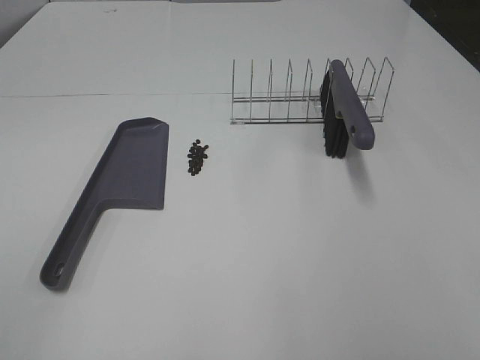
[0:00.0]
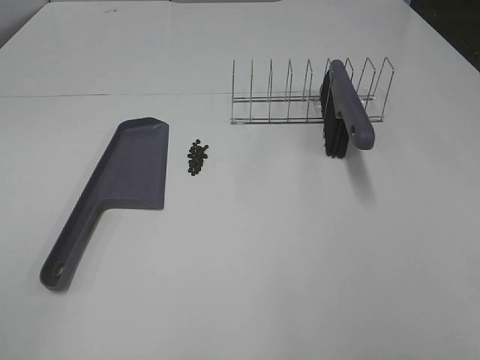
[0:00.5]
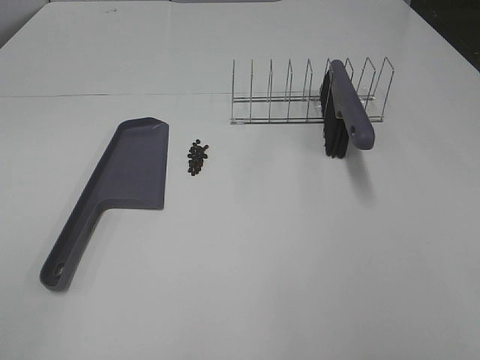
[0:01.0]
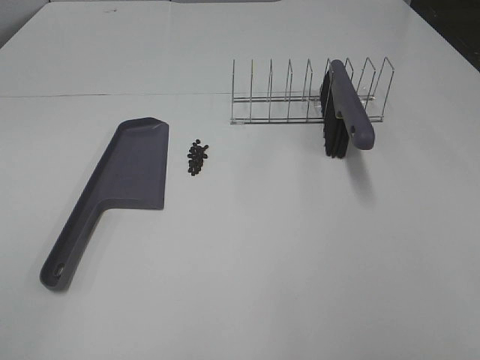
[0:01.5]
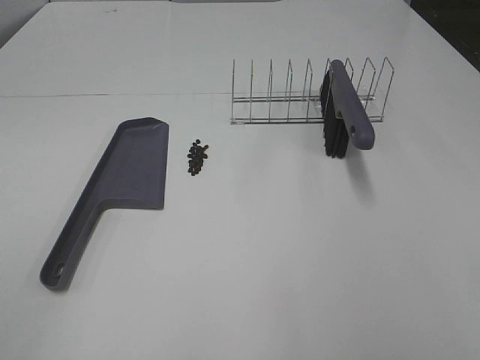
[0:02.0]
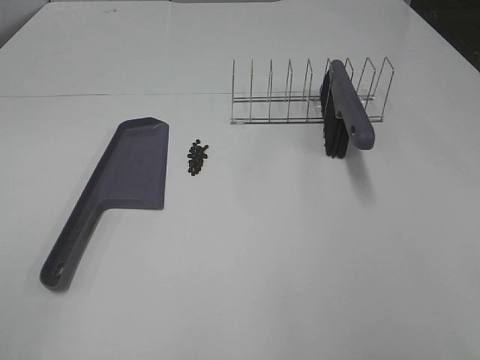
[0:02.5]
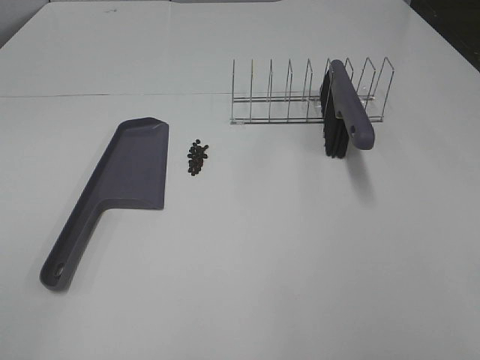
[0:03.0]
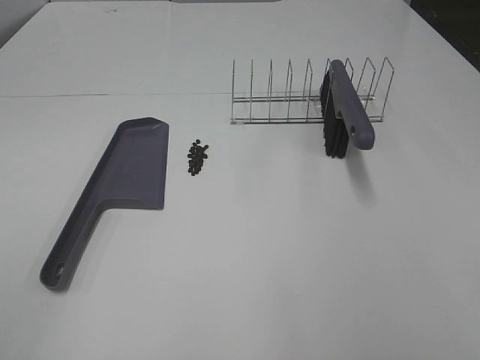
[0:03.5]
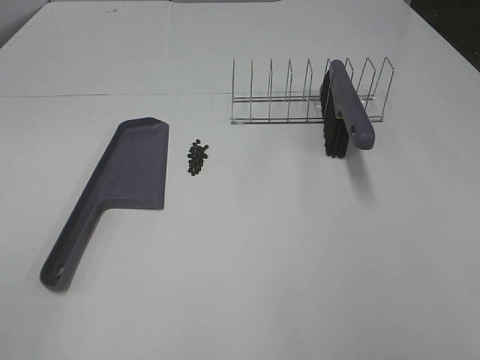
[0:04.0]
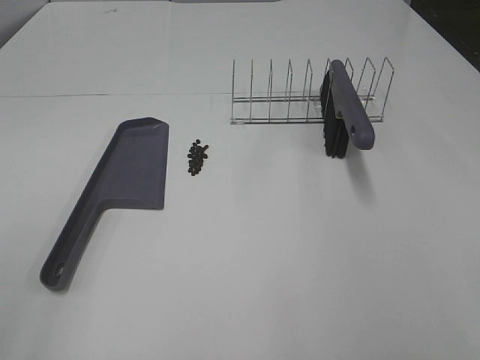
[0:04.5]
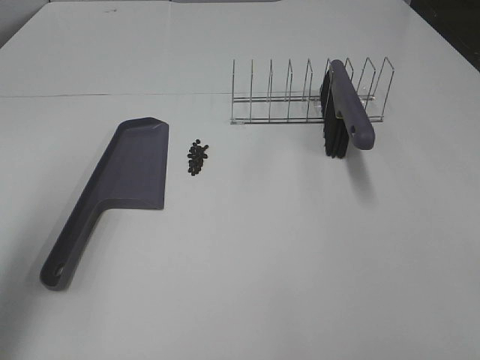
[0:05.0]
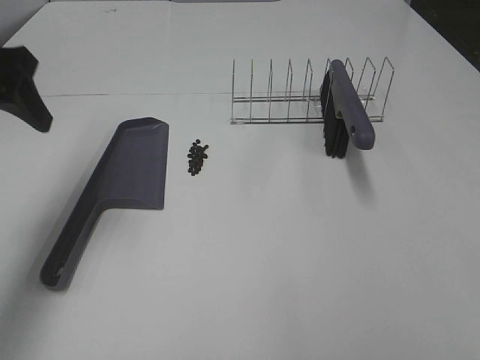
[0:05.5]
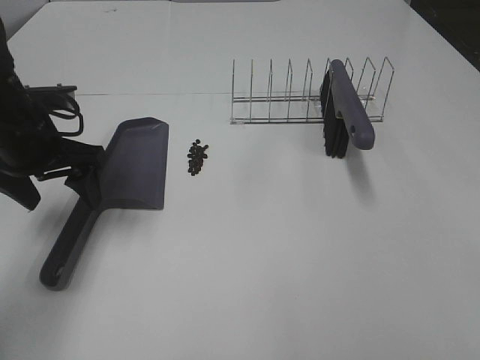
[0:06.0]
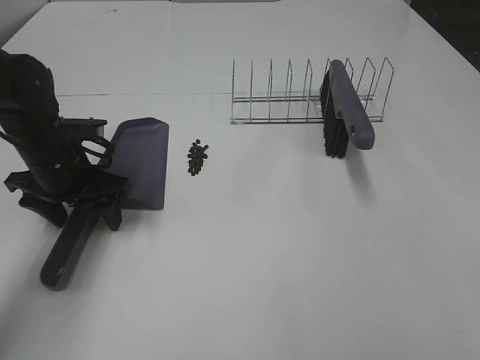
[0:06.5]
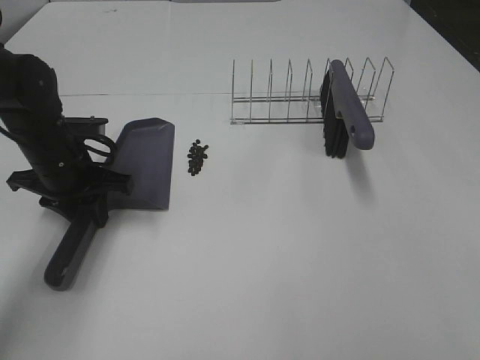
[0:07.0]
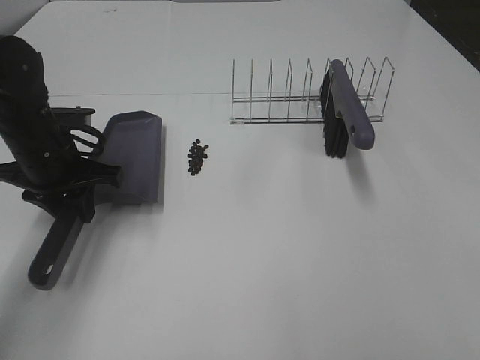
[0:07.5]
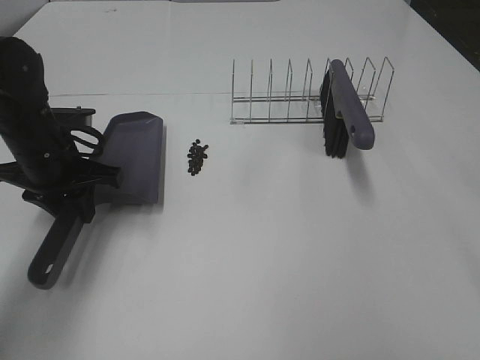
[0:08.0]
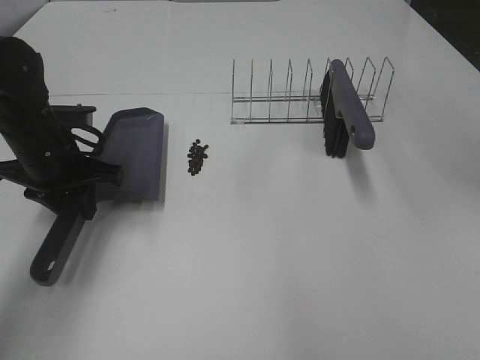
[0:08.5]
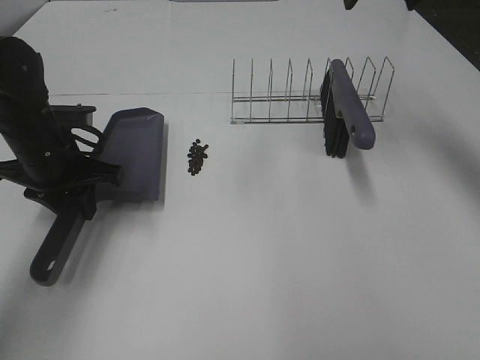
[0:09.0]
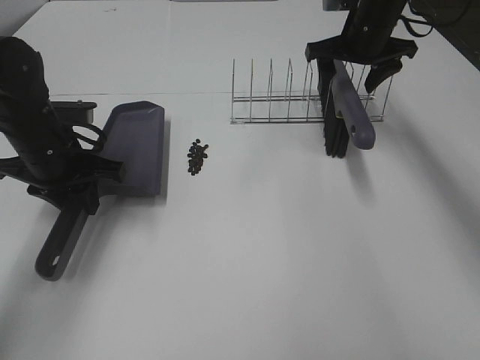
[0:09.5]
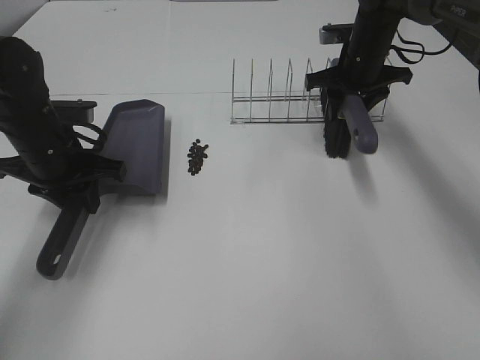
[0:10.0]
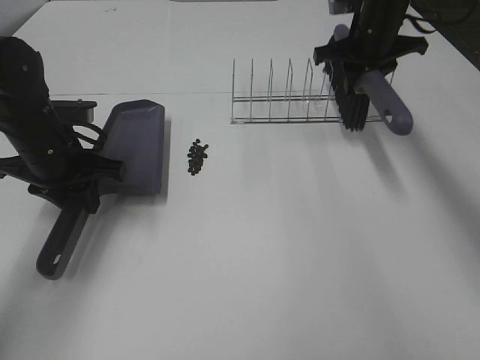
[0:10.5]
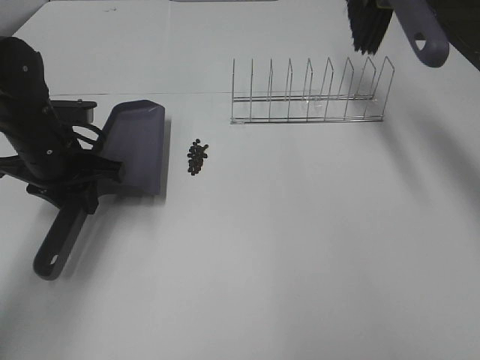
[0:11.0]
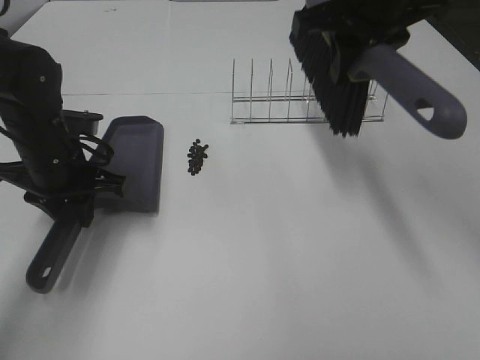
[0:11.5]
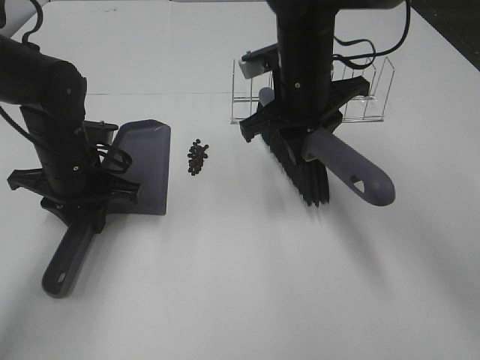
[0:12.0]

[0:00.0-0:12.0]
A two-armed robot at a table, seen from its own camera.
Task of the whole recording: Sweep Coffee Bean.
Step, 0:00.0 to 0:06.5: Left hand: grab the dustpan.
Step, 0:07.5 to 0:10.0: Right hand:grab the broom.
0:00.0 to 0:04.0: Both grippers stay about where they are.
0:04.0 to 0:06.0: The left gripper travels forward by some 35 cm.
0:06.0 to 0:08.0: The left gripper closes its fingers.
0:08.0 to 0:10.0: The right gripper is displaced forward and downward by about 50 cm, and closes its fingers.
0:10.0 to 0:12.0: The right gripper is displaced backward and to the left by some 20 cm, and moves about 20 cm upward and comes back.

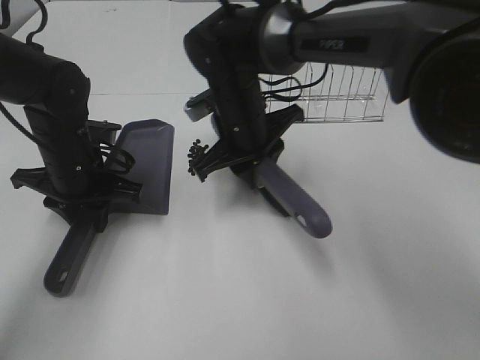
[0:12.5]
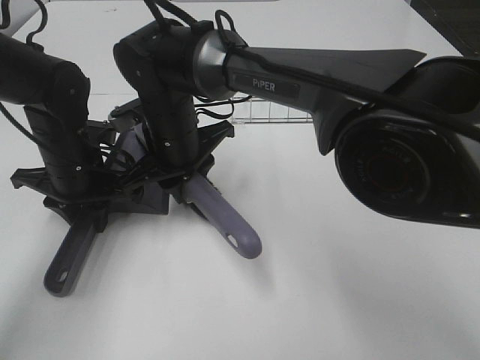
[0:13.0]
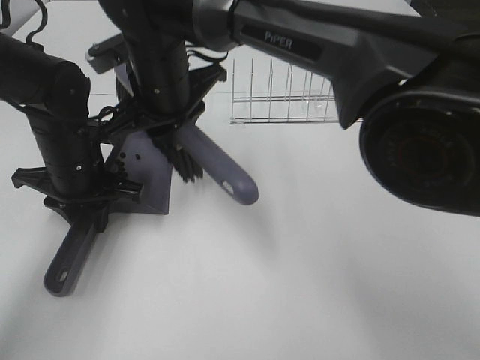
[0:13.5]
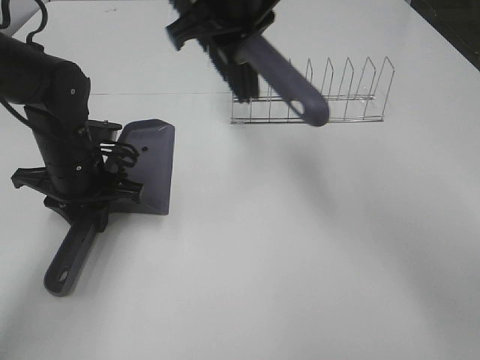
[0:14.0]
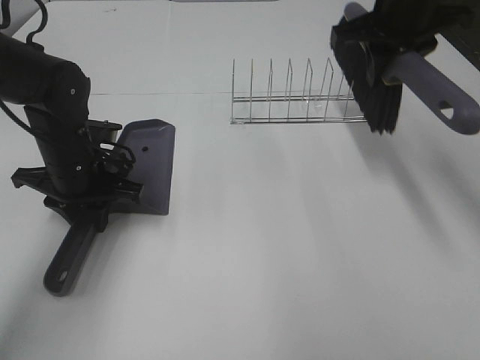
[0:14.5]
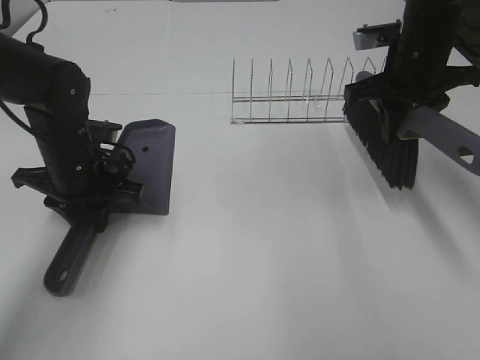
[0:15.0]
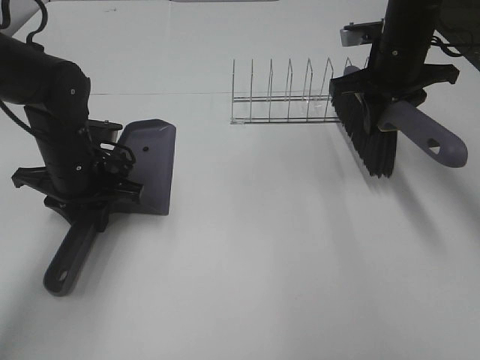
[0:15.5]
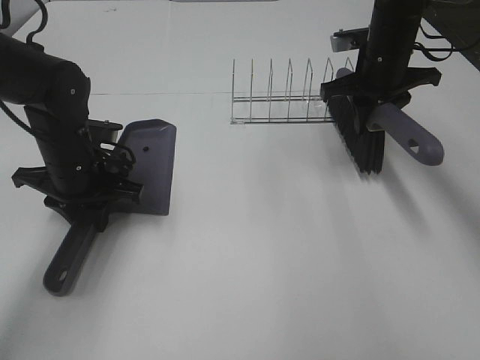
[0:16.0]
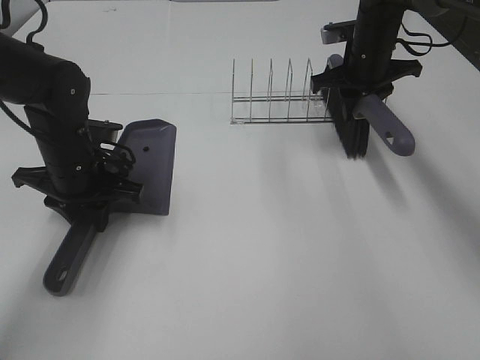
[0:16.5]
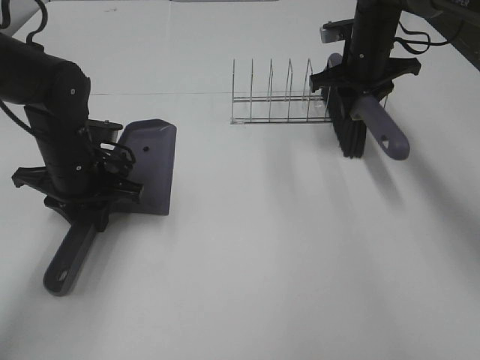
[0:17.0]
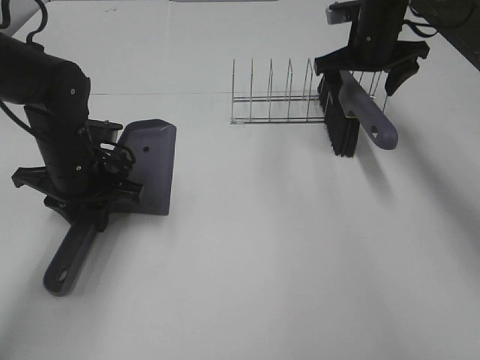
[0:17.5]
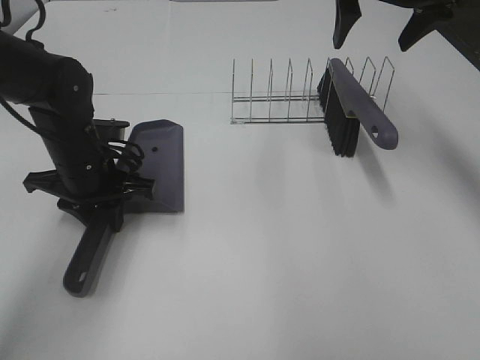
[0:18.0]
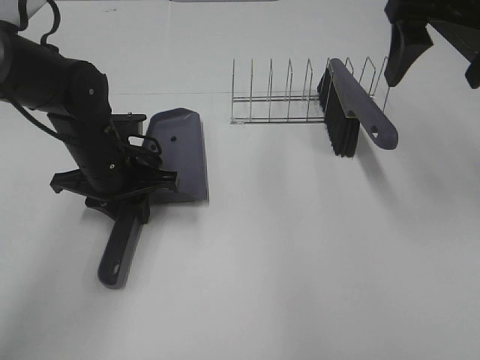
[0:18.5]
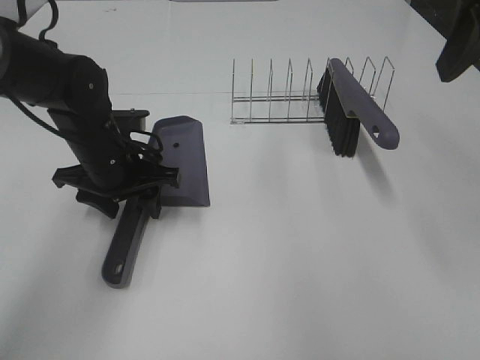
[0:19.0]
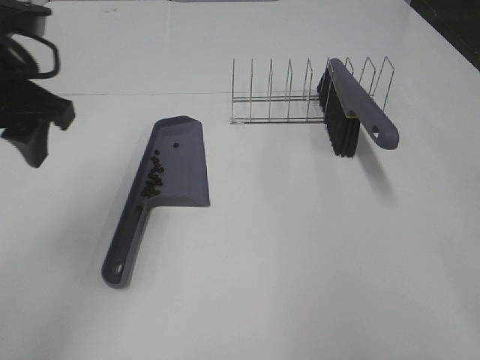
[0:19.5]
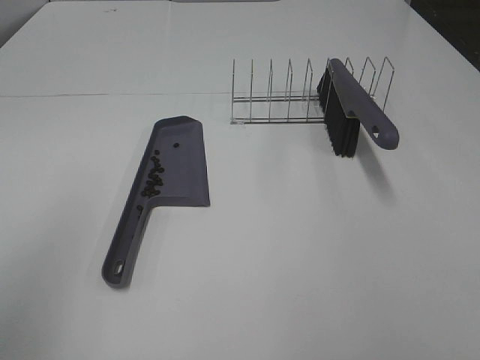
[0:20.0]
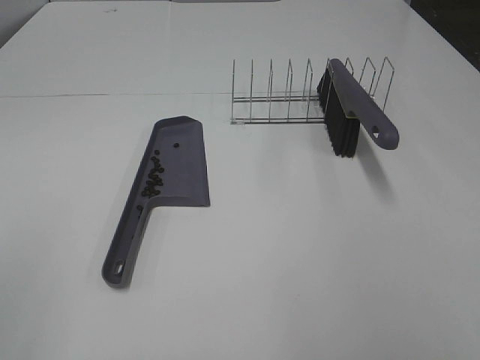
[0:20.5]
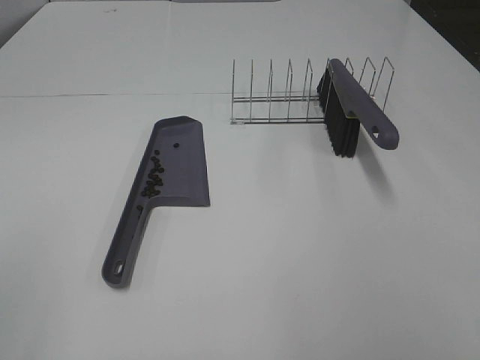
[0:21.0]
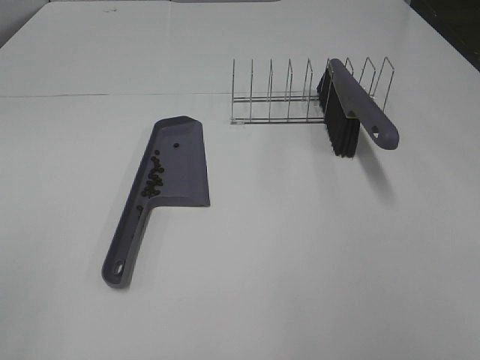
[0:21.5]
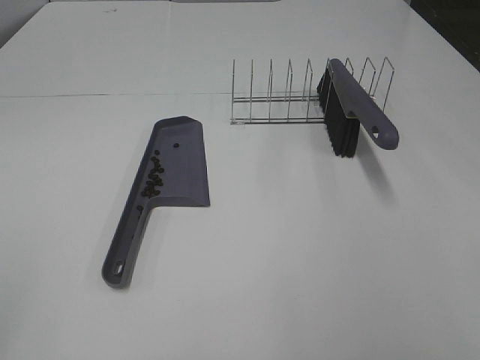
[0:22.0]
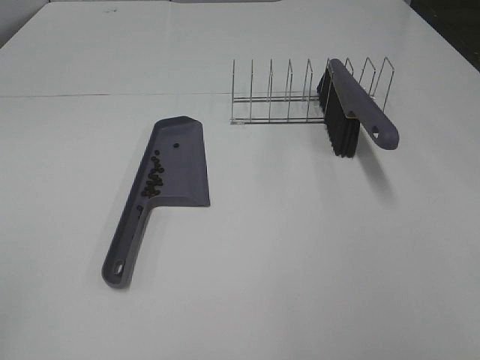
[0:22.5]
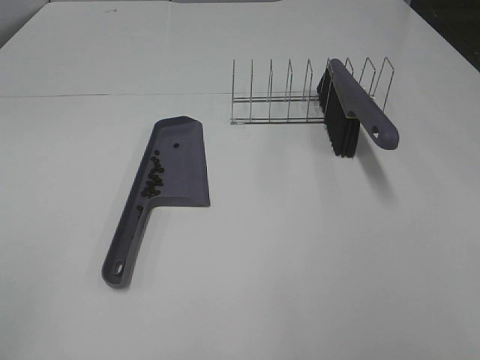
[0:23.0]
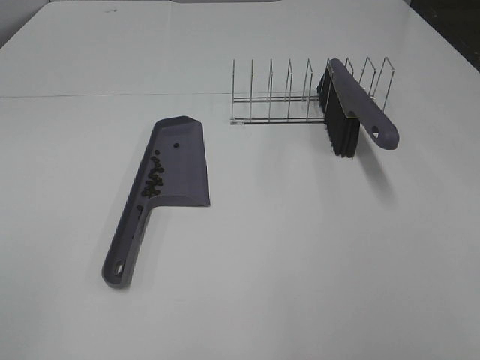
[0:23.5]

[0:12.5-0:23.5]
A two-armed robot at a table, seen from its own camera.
Task of the whole recording: Sweep Coffee Bean.
Step, 0:13.5 to 0:17.0: Right hand:place the broom on the rack.
Step, 0:17.5 to 0:19.0: Left hand:place the dustpan on the table.
0:12.5 to 0:14.5: The right gripper heads to the right and upward, covering some 25 cm.
0:14.5 to 0:16.0: The right gripper heads downward, covering some 10 cm.
0:16.0 to 0:18.0: The right gripper is displaced upward by about 15 cm, and opens its fingers.
0:18.0 to 0:20.0: The left gripper heads backward, upward and to the left, covering some 30 cm, and opens up, while the right gripper is displaced backward by about 40 cm.
0:20.0 to 0:21.5: The left gripper heads backward, covering approximately 10 cm.

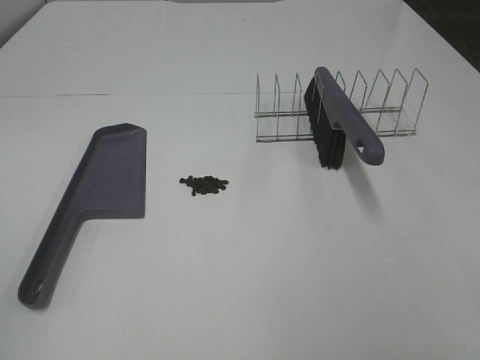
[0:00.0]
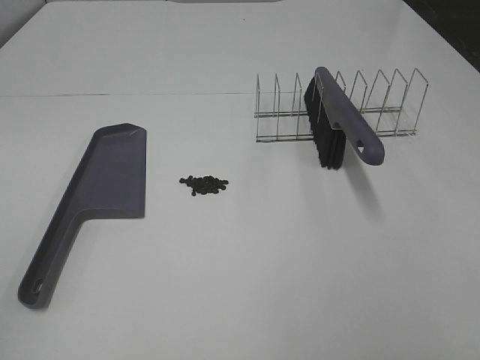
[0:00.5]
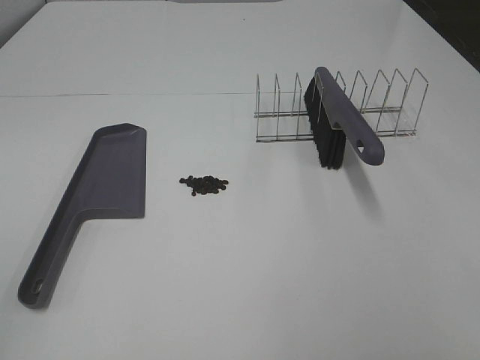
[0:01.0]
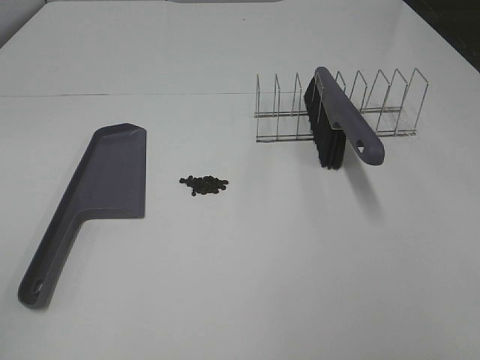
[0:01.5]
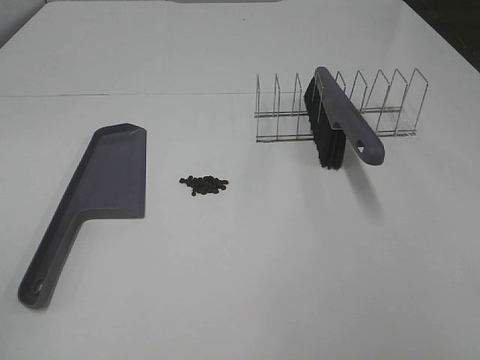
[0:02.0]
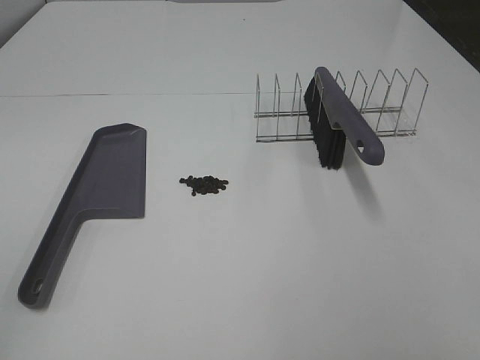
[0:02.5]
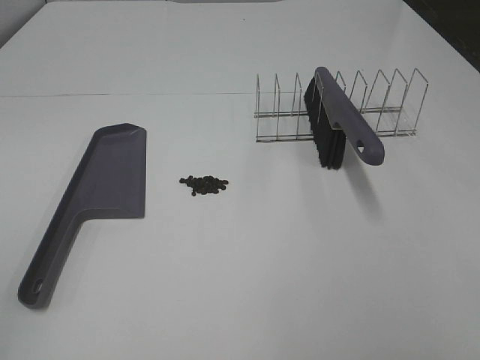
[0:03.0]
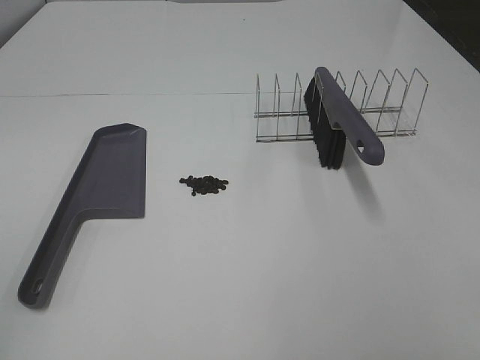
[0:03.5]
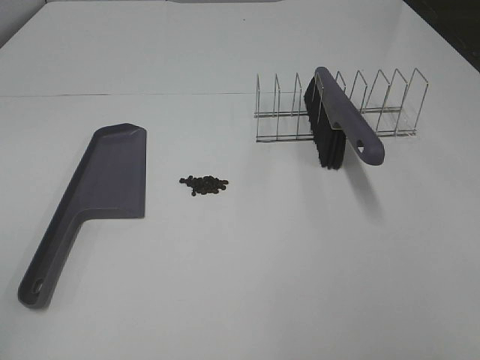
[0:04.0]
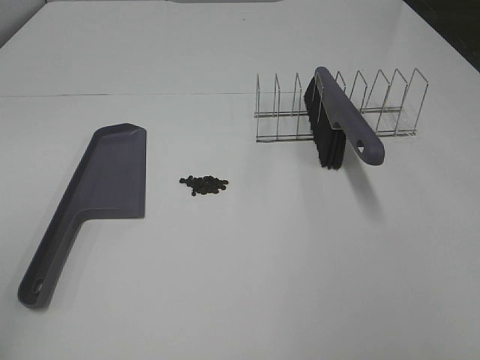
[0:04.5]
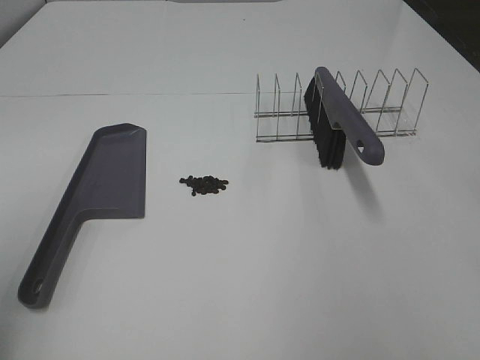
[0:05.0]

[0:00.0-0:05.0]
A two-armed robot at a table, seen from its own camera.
Task of the whole recording: Sweep Coffee Bean.
0:00.0 to 0:02.5: The two grippers keep their place.
0:02.5 to 0:05.0: The left gripper shifts roughly 10 cm forward.
